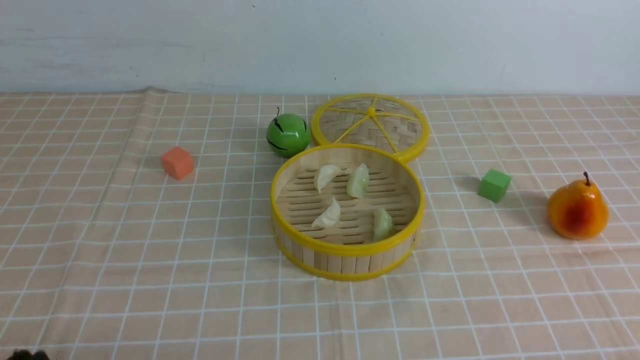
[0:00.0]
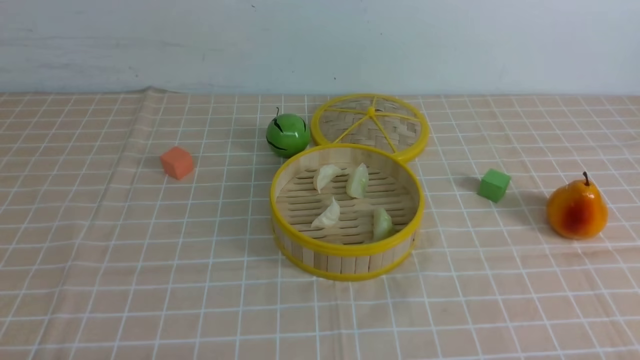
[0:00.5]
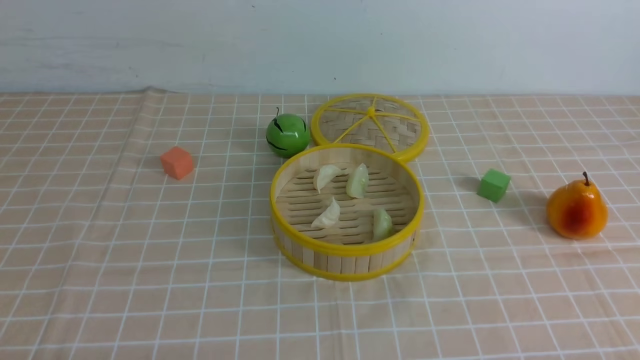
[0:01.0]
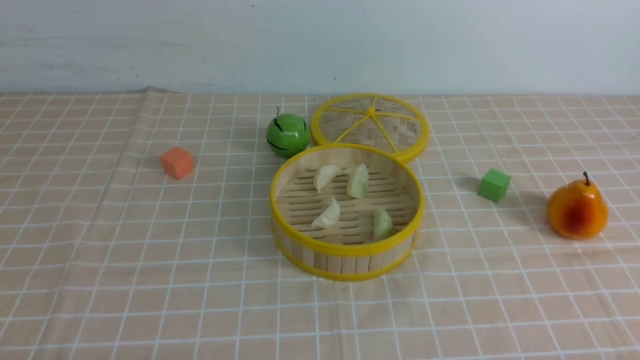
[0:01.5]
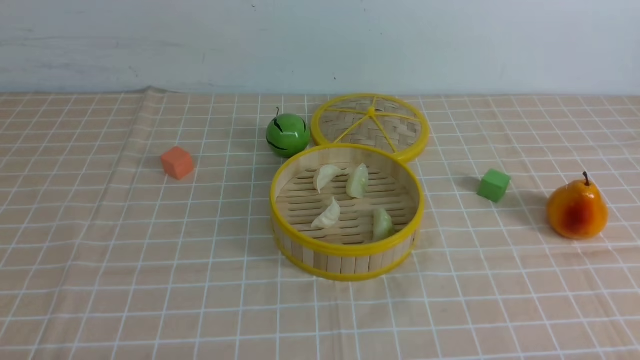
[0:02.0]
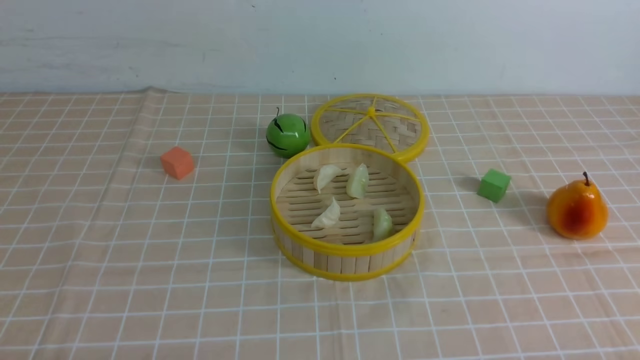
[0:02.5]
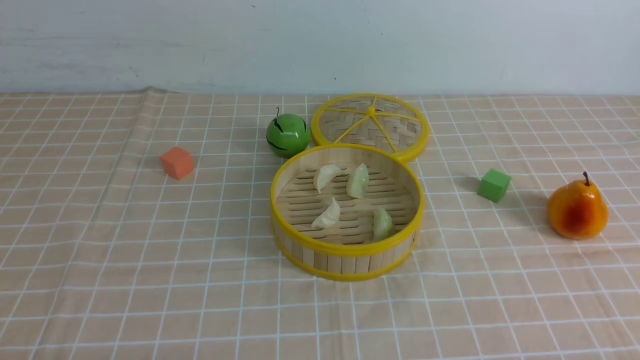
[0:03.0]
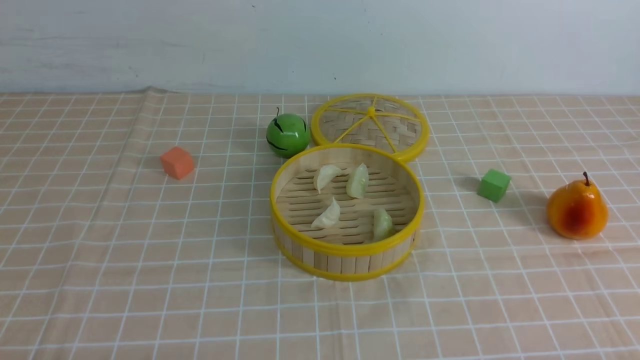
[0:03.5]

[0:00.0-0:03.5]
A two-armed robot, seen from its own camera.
Task of the whole recording: put the dumplings into the steamer on the table with the brown tablecloth.
0:02.0 to 0:03.5: Neither gripper changes place.

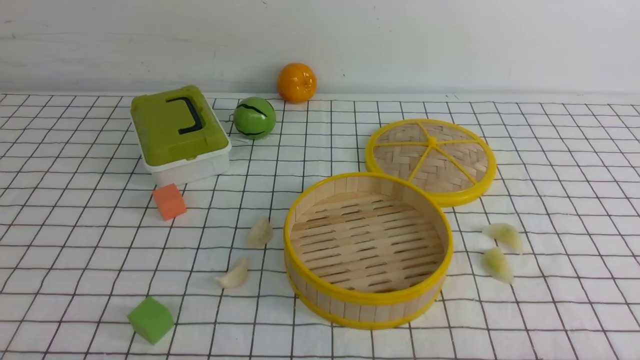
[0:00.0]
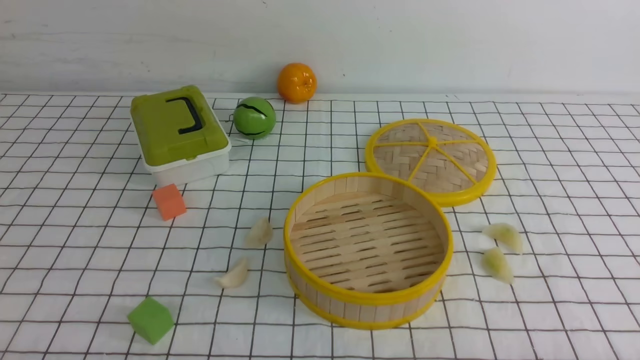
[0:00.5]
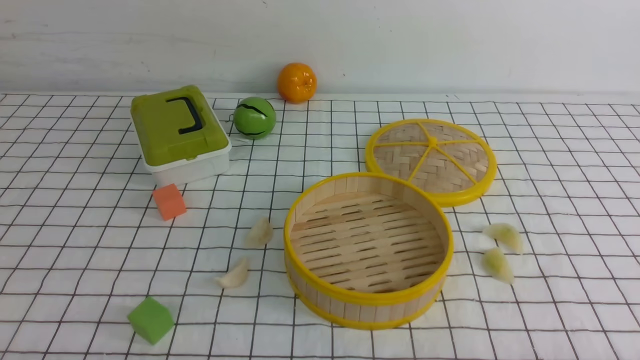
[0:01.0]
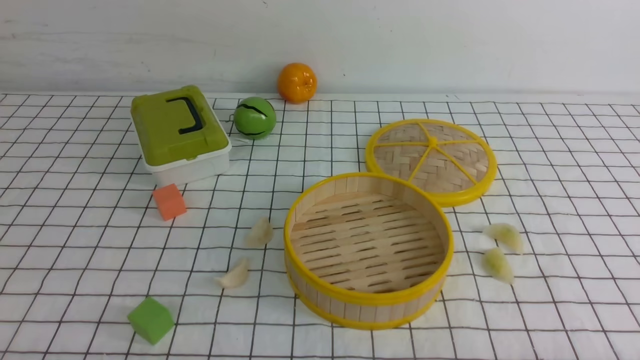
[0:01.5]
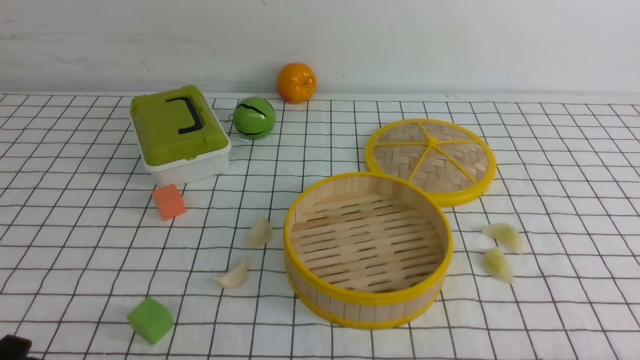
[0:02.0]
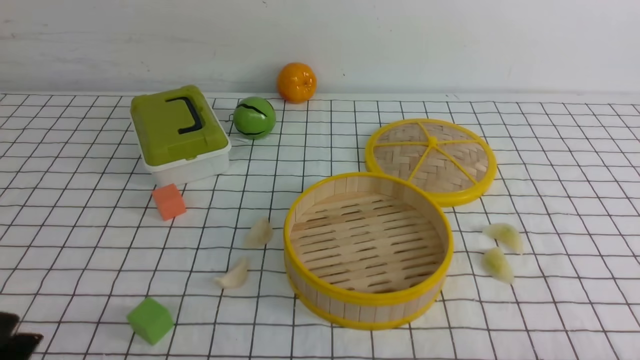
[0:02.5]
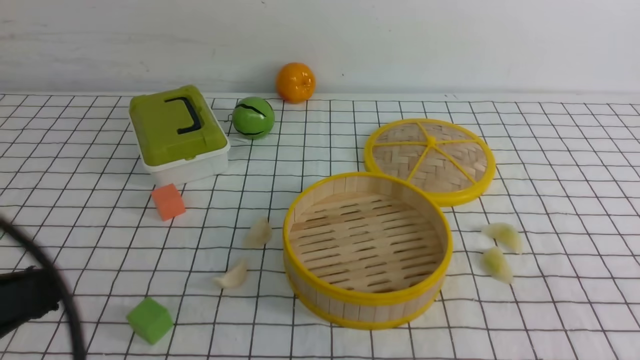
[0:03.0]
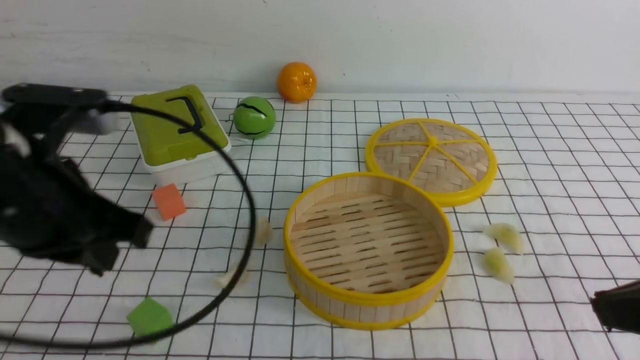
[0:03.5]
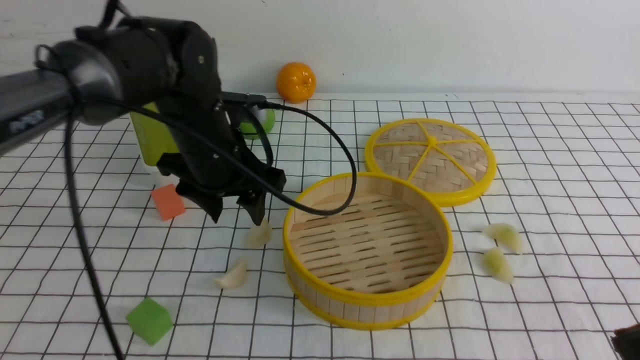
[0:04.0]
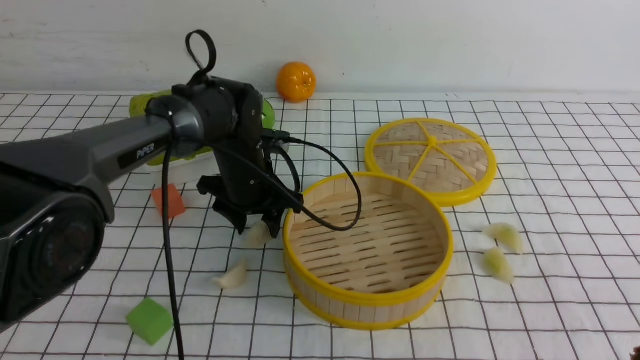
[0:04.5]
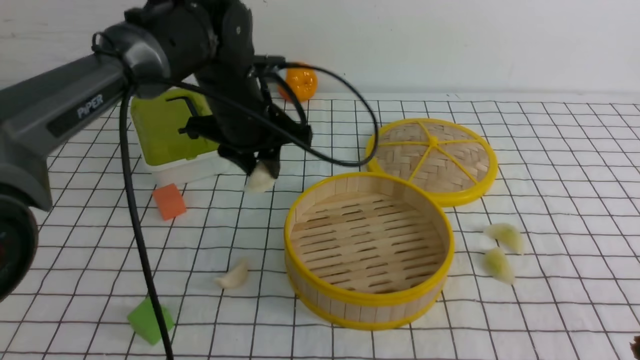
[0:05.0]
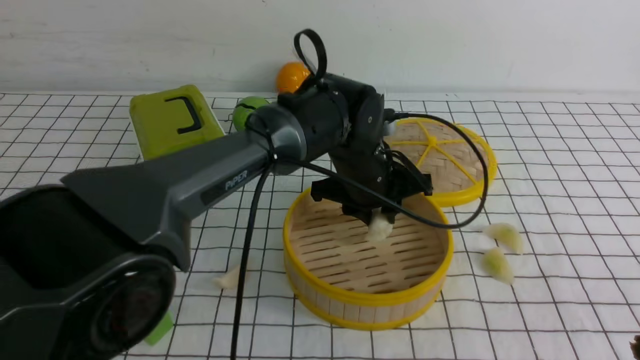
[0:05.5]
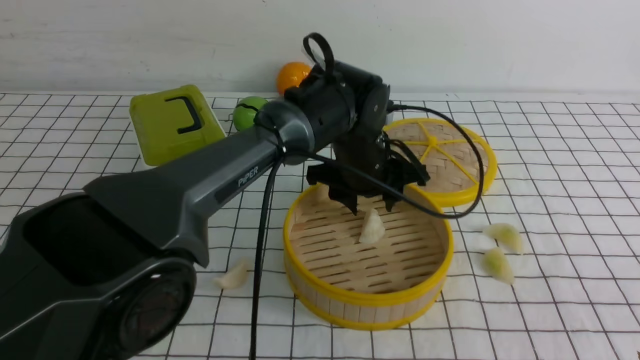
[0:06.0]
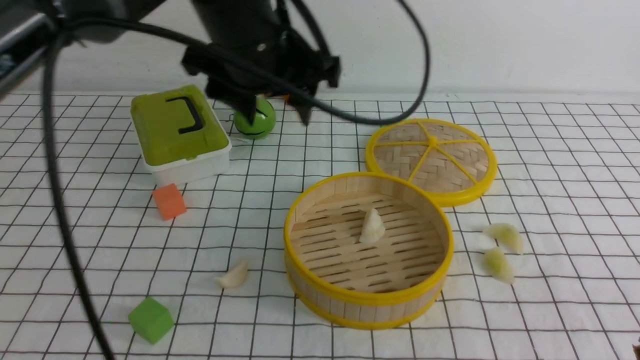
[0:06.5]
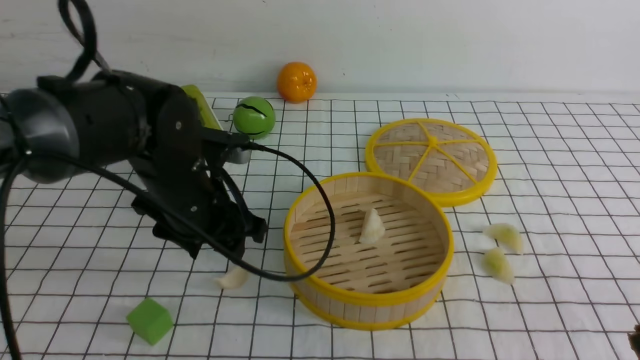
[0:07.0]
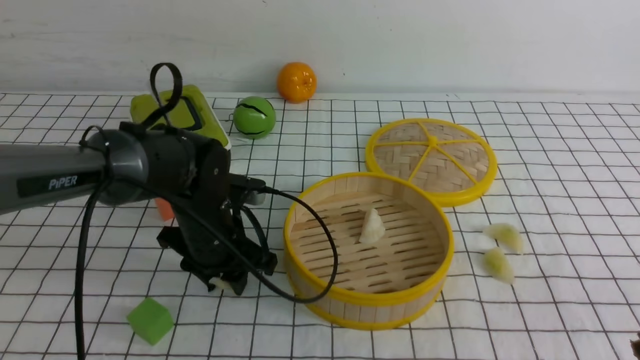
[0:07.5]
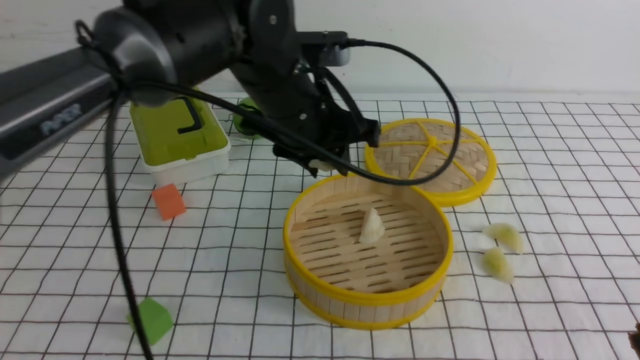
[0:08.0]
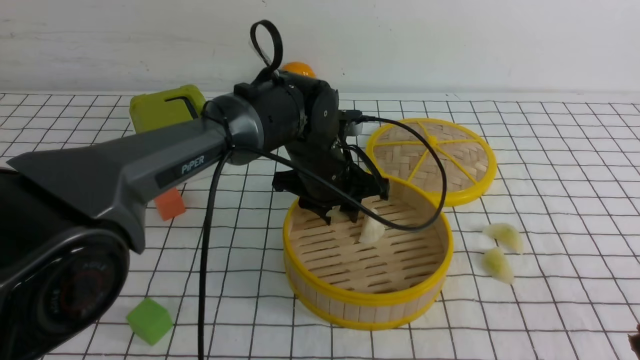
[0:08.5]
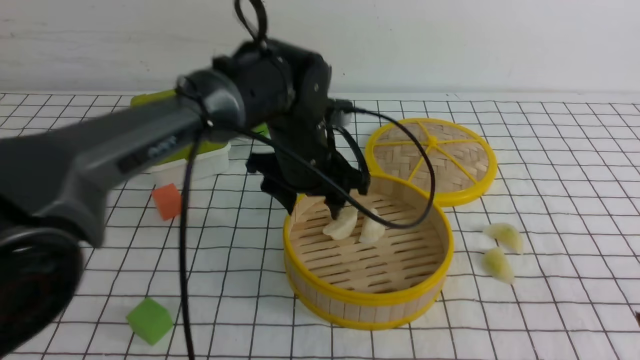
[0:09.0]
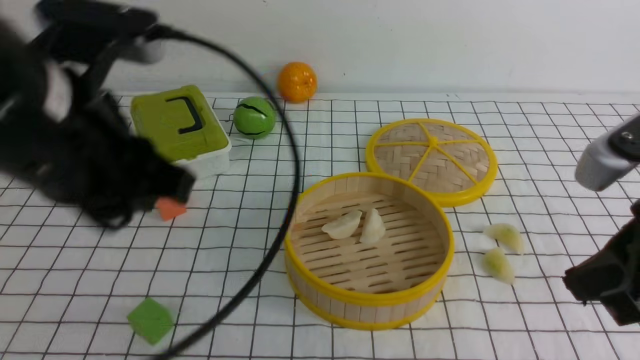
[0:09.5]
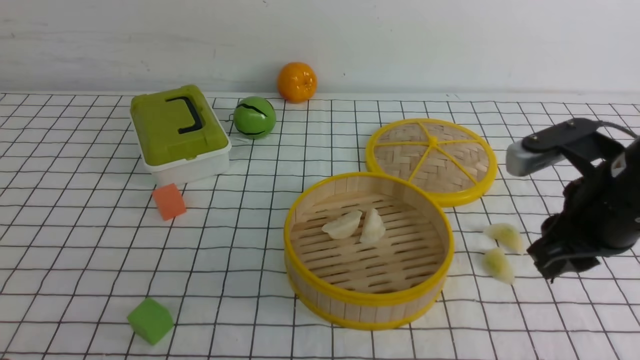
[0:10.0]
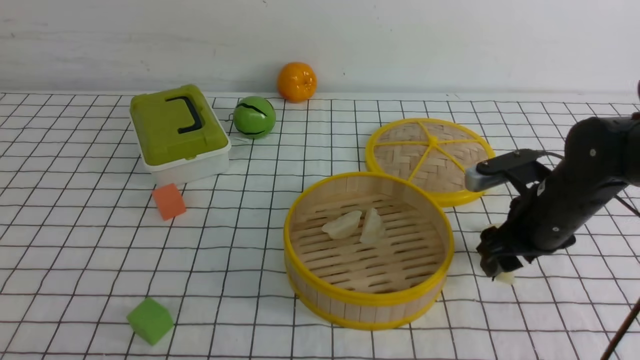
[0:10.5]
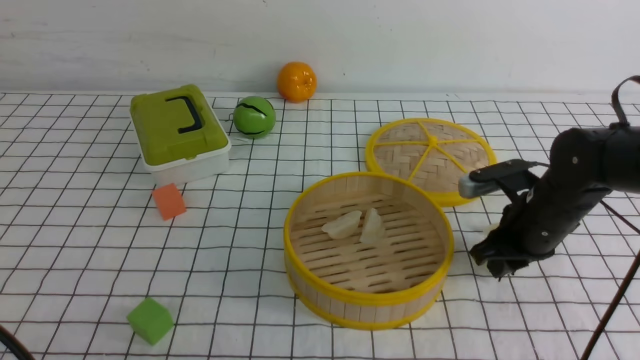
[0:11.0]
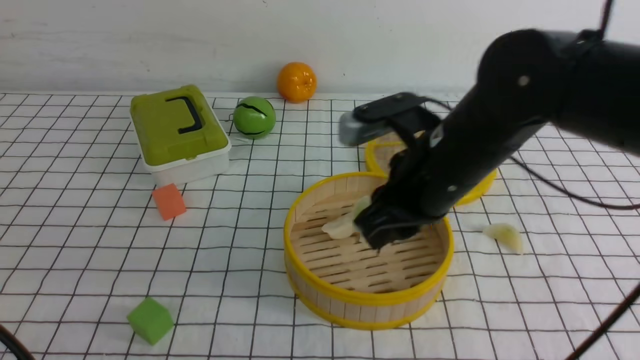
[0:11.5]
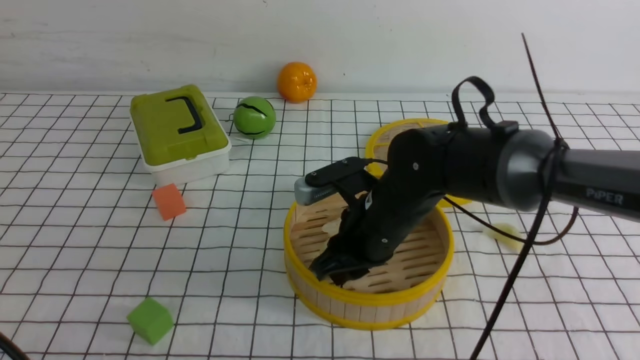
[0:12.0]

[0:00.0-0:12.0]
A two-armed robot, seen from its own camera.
Task of the whole recording: put the dumplings into the steamer on the table with the white tablecloth.
Step, 0:00.0 to 0:04.5: use the left arm to grab a dumpling.
Step, 0:05.0 to 0:06.0: use the left arm to put the dumpling into the steamer.
Step, 0:06.5 to 0:07.0: use the left arm to grab a dumpling.
Step, 0:07.5 to 0:09.0: use the left arm to put the dumpling into the steamer.
Step, 0:09.5 to 0:10.5: use the right arm to grab a dumpling.
0:02.0 to 0:04.0: The right gripper goes some 15 cm upward and forward, and closes its fingers. Meanwhile the left gripper heads forward and to the right, covering roughly 35 cm, and opens.
0:04.0 to 0:06.0: The left gripper is displaced to the right by about 15 cm, and closes, then reopens.
0:06.0 to 0:08.0: The left gripper swings up and down, some 20 cm each way, with 2 reversals.
0:08.0 to 0:10.0: The right gripper shifts some 15 cm forward, and opens up, while the left gripper travels backward and to the left by about 40 cm, and closes.
0:10.0 to 0:12.0: The right gripper heads to the left and downward, covering approximately 20 cm, and opens and closes again.

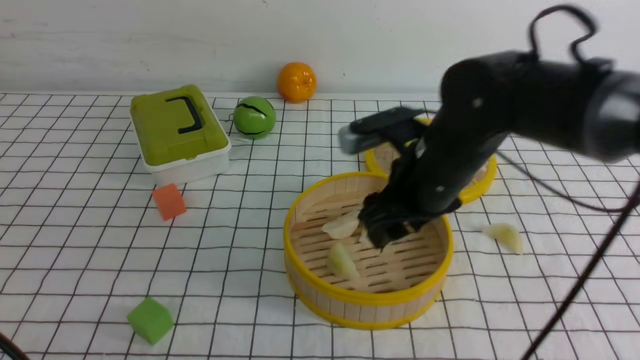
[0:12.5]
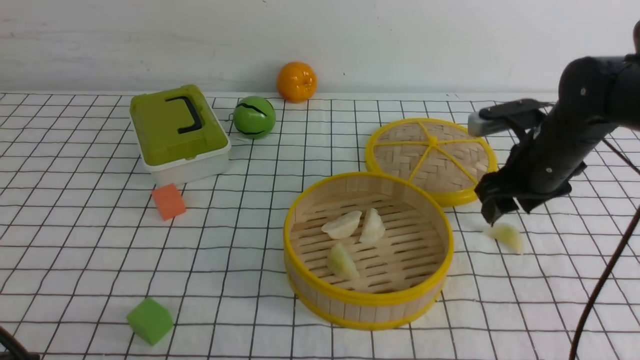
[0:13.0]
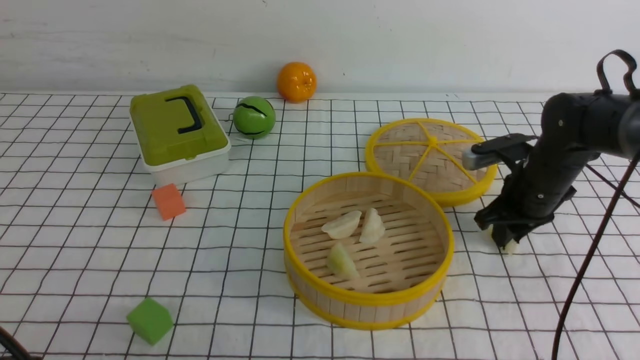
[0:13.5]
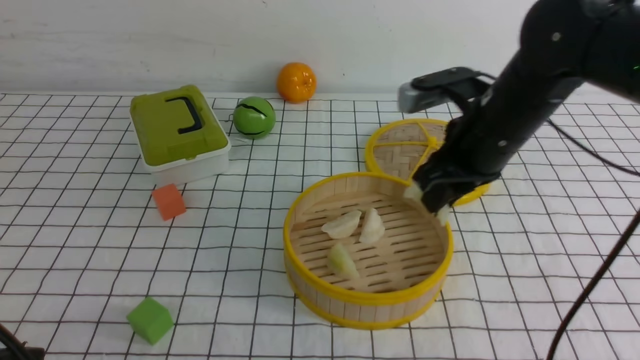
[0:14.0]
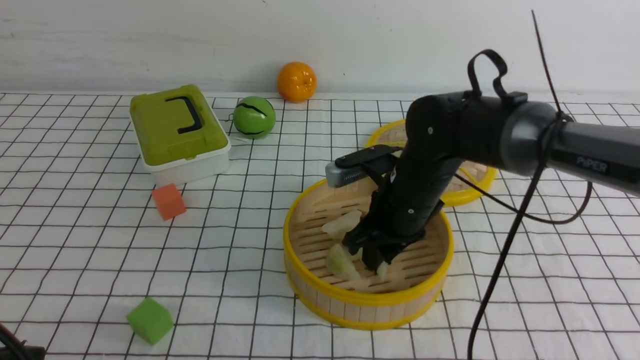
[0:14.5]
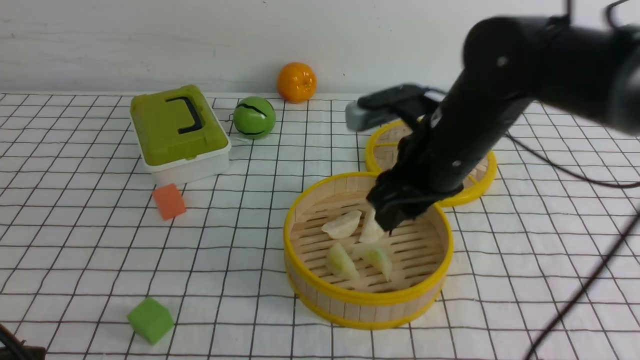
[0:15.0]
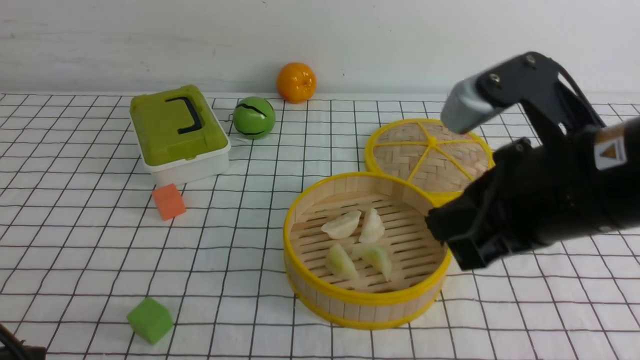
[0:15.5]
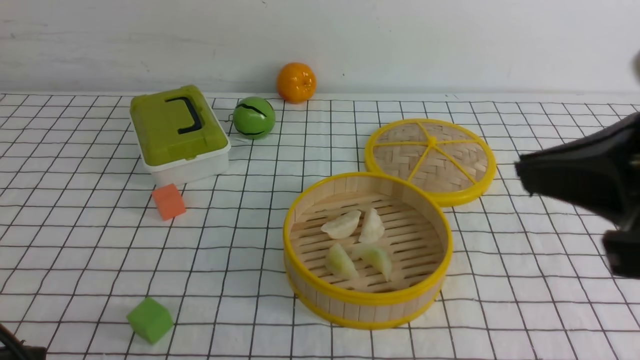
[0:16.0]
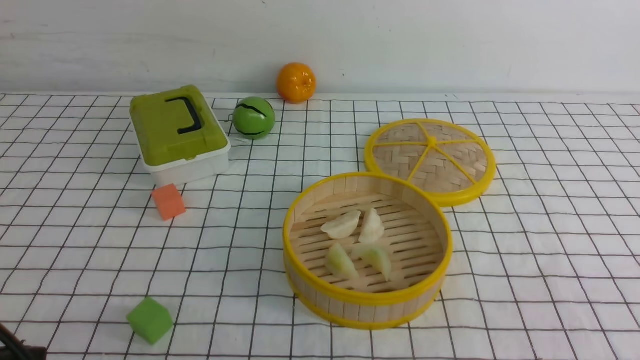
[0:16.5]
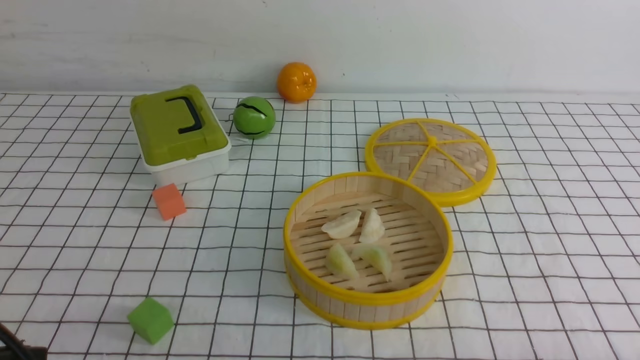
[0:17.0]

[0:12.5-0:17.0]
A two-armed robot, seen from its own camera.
Task of the whole recording: put the dumplings into the steamer on the table with the white tablecloth.
Step, 0:13.5 to 0:15.0: use the right arm to put the dumpling into the steamer.
0:12.5 to 0:14.5: The right gripper shifts approximately 5 cm downward, moves approximately 15 cm to the right and comes back, and closes its fingers.
0:14.5 to 0:17.0: The right gripper is displaced backward and to the right by some 40 cm, and closes up.
